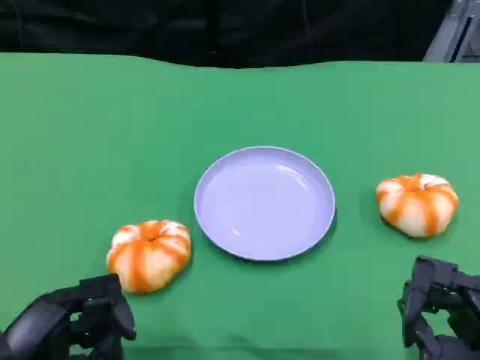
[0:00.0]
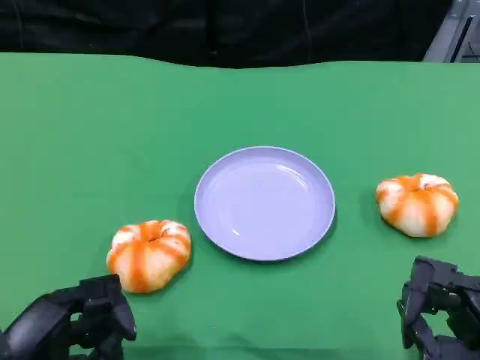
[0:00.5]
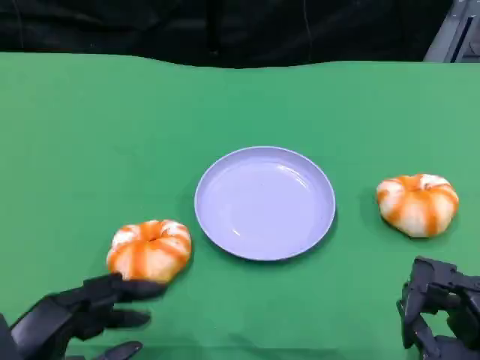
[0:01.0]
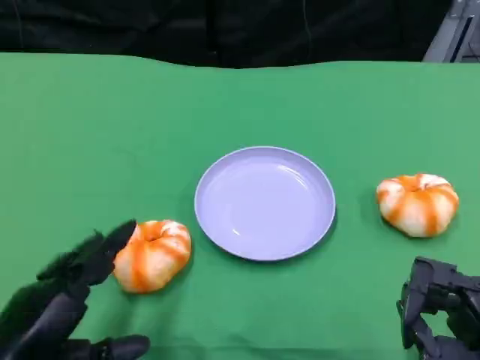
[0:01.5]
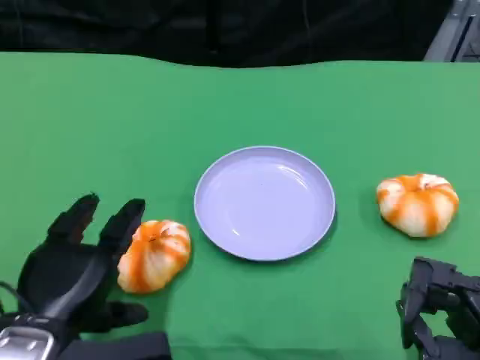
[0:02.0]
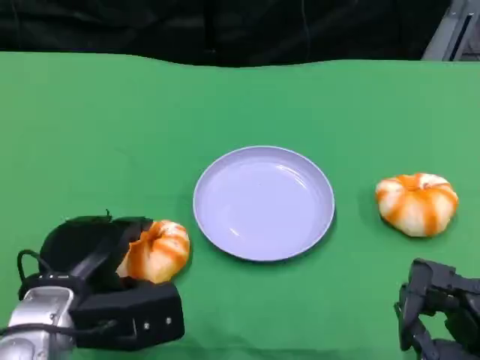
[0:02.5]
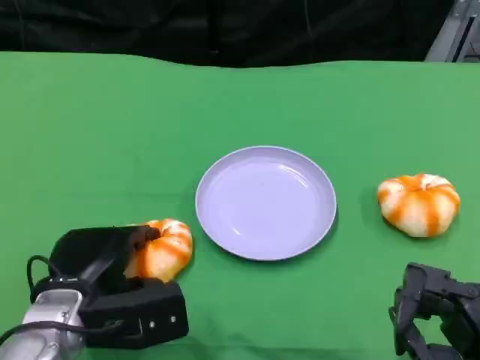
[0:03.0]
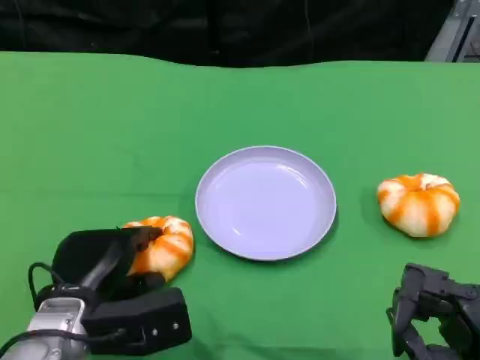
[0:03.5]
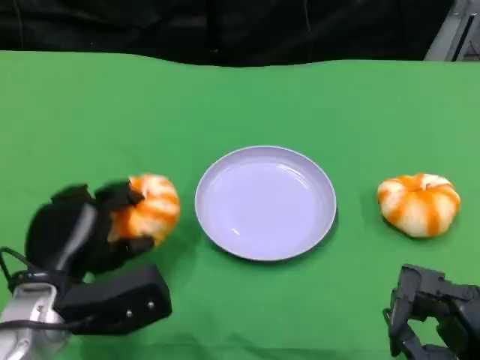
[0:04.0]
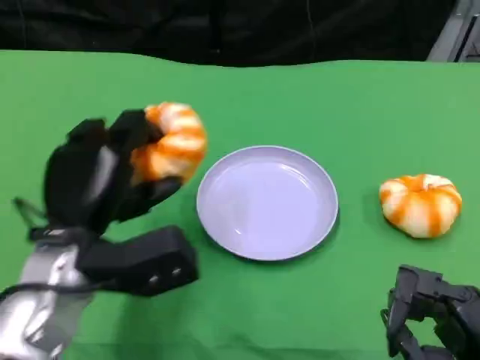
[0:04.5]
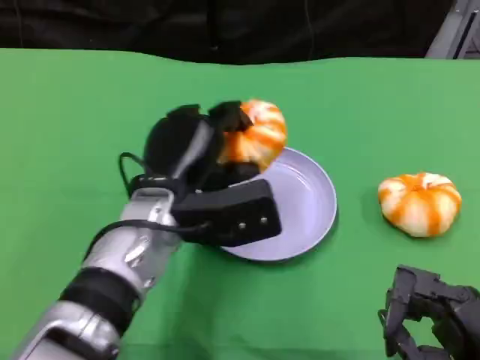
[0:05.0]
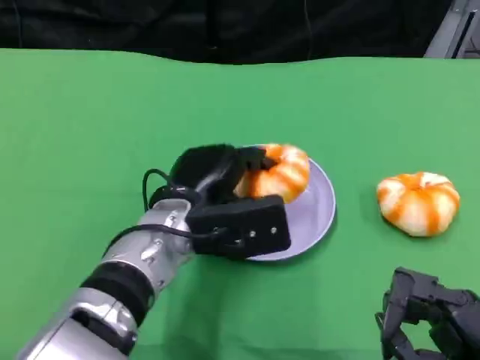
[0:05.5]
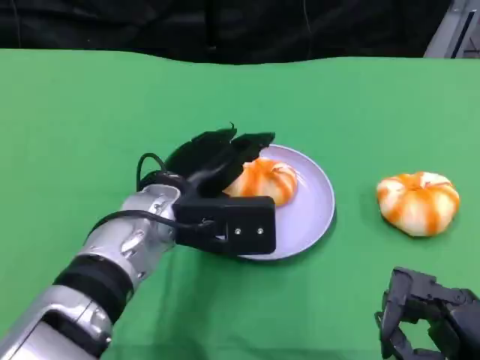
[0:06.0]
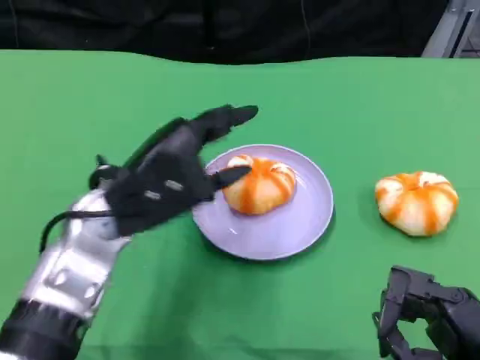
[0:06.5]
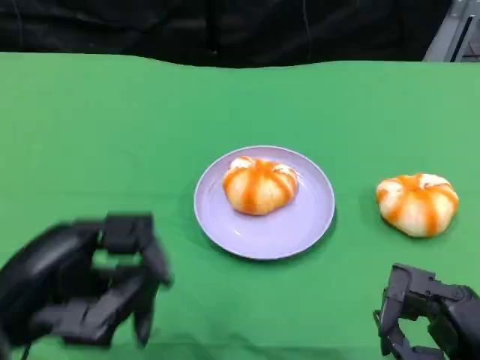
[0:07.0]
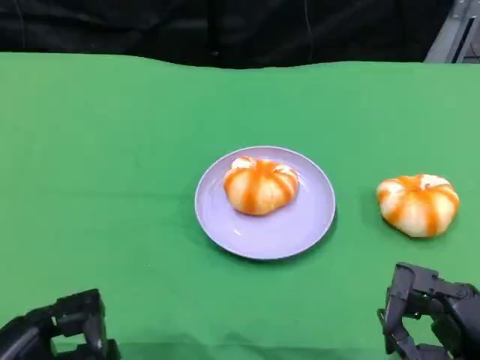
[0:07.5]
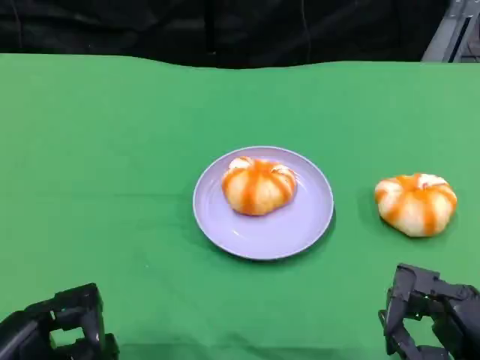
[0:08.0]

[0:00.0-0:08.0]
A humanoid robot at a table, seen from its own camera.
Task of the whole recording: Grasp the bread from the table and place it into the plate.
0:00.0 to 0:02.0: The left hand goes roughly 5 cm forward.
0:02.0 to 0:04.0: The left hand ends up roughly 5 cm from where it was.
0:04.0 to 0:06.0: The left hand shifts roughly 15 cm to the right and forward.
0:06.0 to 0:08.0: The left hand goes roughly 25 cm backward and to the left.

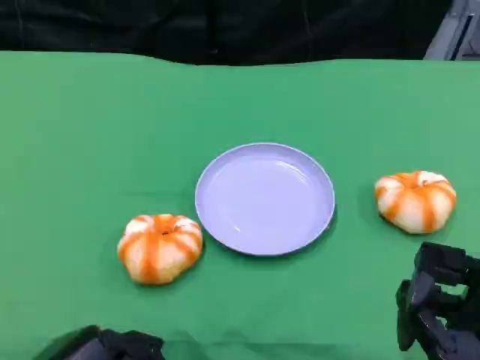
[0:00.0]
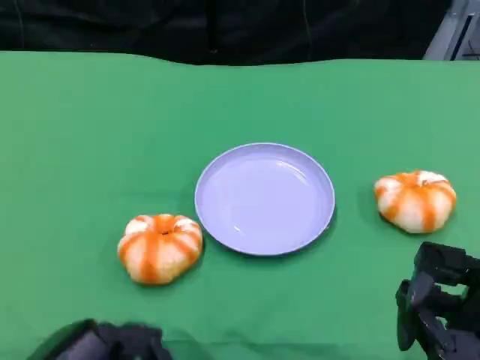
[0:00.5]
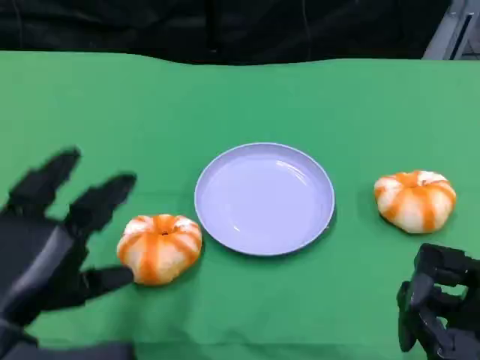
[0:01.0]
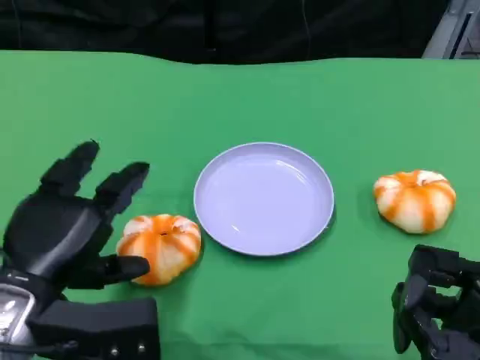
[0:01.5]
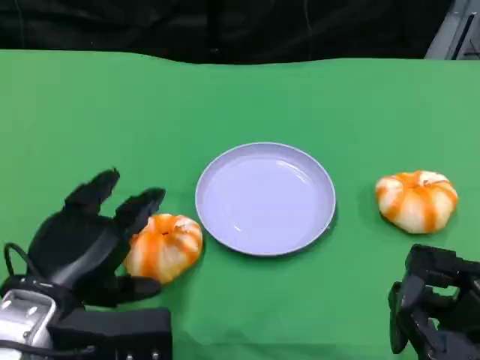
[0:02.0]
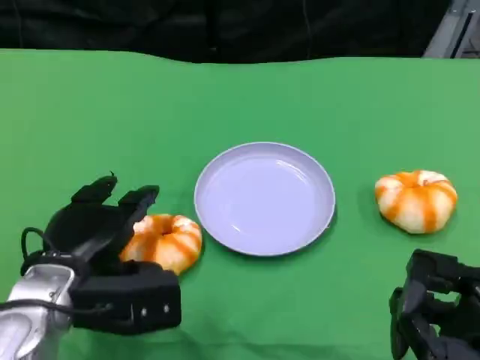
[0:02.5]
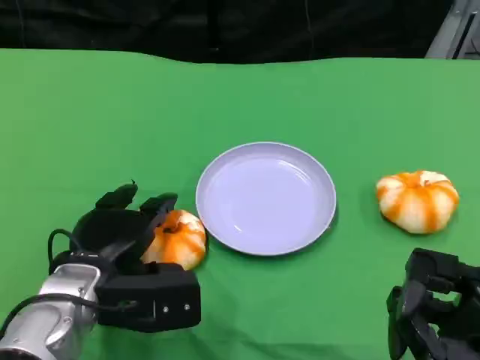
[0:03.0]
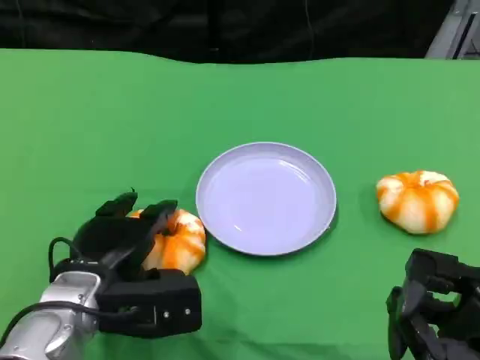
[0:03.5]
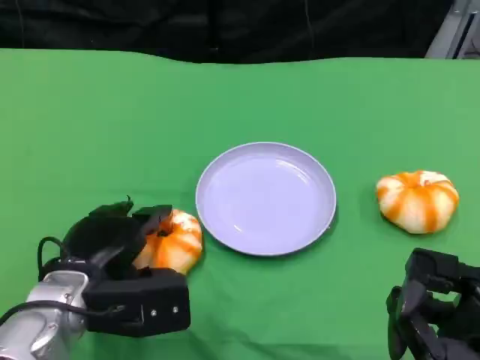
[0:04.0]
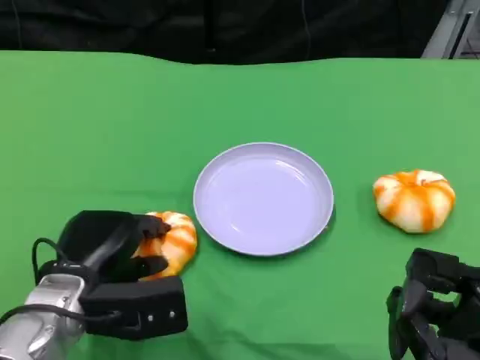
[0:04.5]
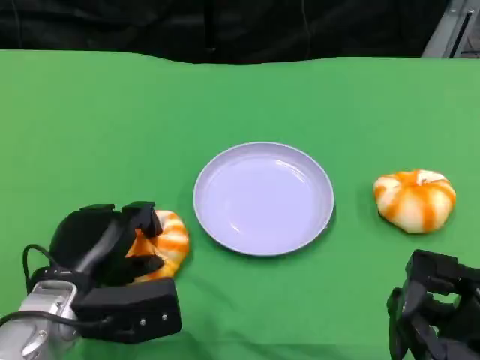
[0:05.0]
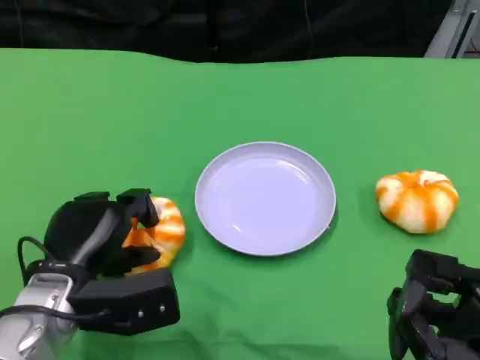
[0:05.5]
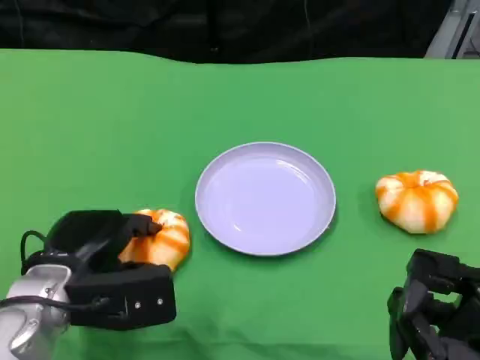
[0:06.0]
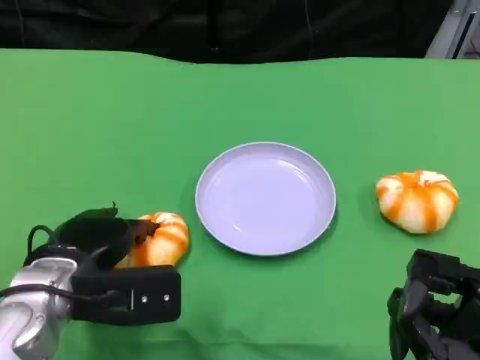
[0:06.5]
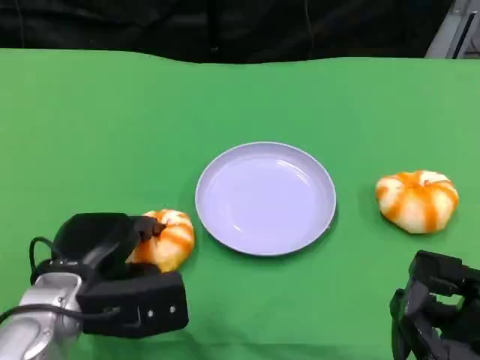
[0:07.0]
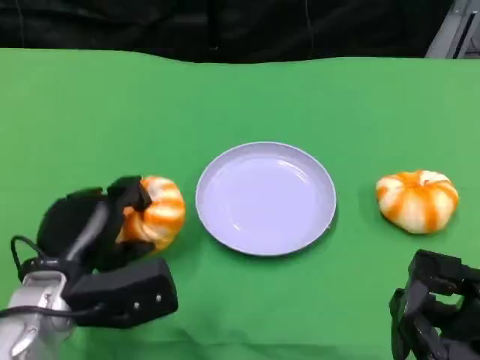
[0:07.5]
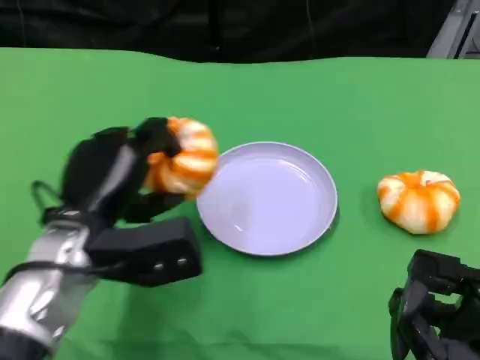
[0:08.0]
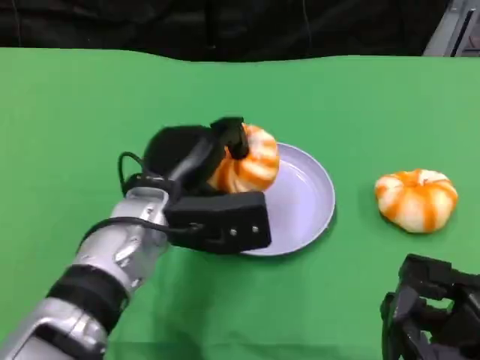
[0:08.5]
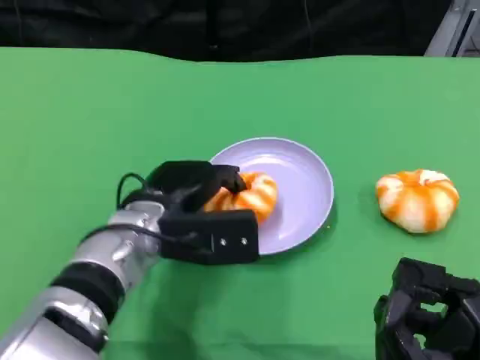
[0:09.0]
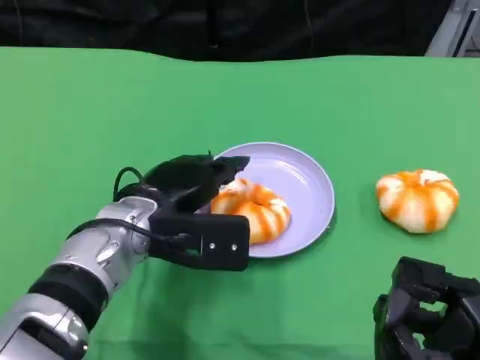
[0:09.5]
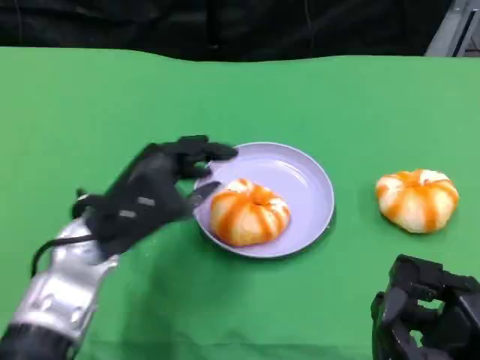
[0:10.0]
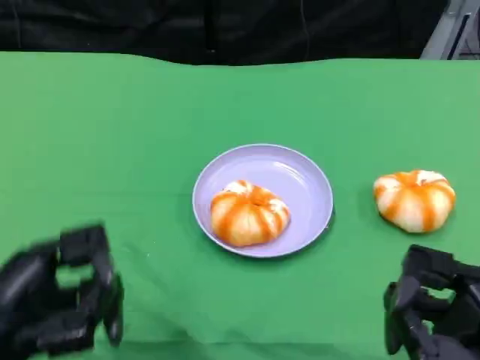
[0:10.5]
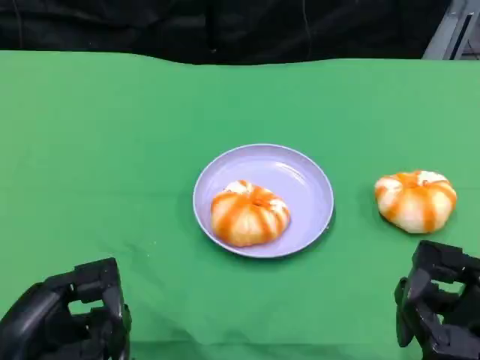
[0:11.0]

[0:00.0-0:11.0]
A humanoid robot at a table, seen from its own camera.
Task of the whole recording: Grasp the bread from the table and place it into the plate.
0:00.0 to 0:02.0: The left hand shifts roughly 10 cm forward.
0:02.0 to 0:03.5: The left hand shifts by roughly 5 cm.
0:03.5 to 0:05.5: The hands make only small movements.
0:07.5 to 0:09.0: The left hand goes some 10 cm to the right and forward.
0:09.0 to 0:11.0: The left hand travels backward and to the left by roughly 20 cm.

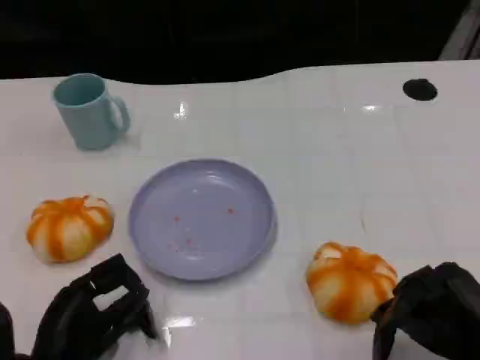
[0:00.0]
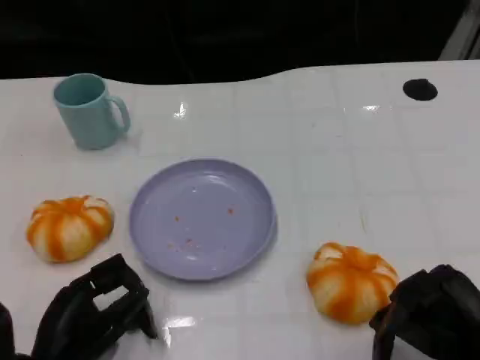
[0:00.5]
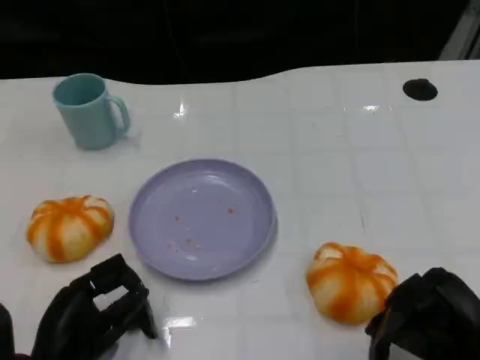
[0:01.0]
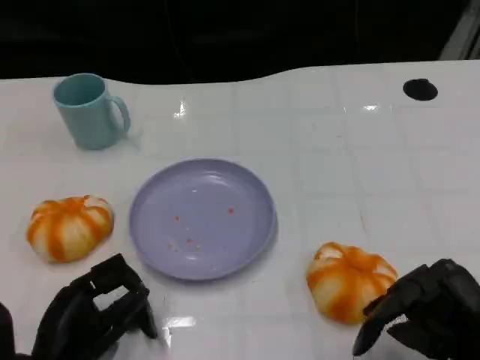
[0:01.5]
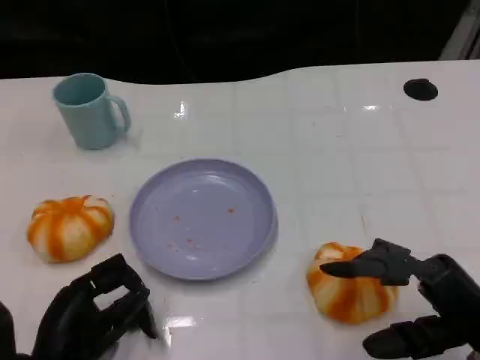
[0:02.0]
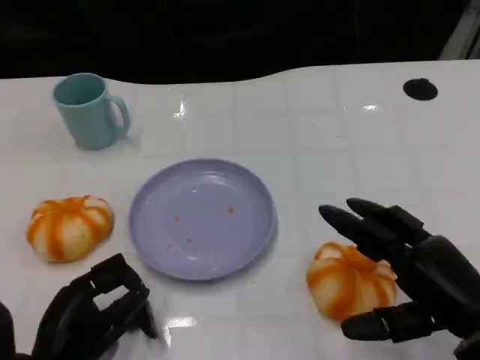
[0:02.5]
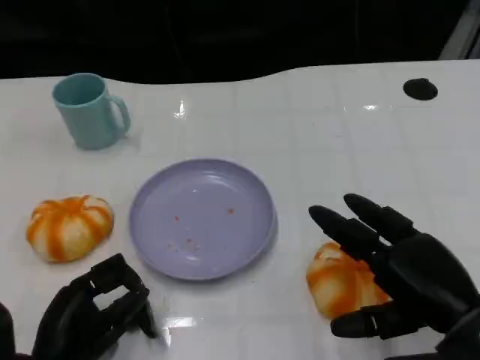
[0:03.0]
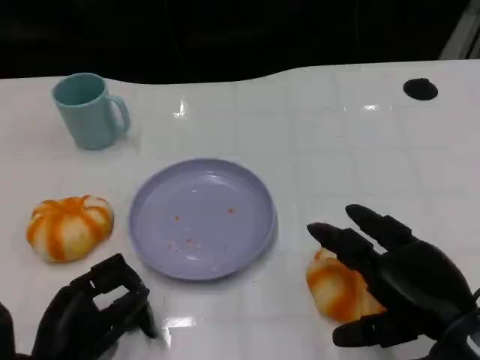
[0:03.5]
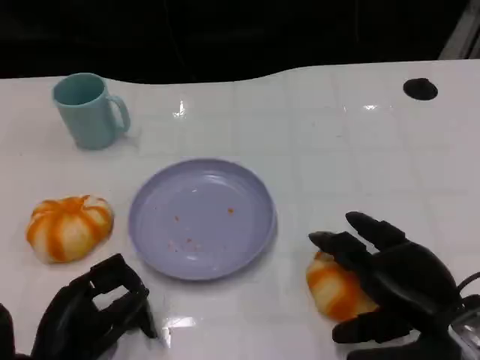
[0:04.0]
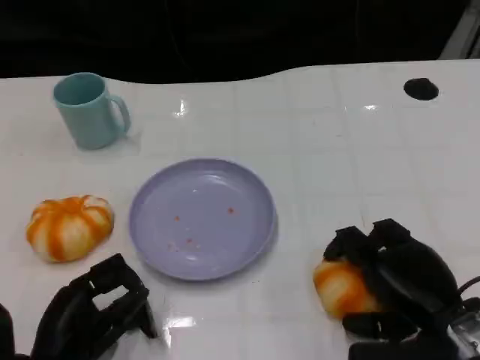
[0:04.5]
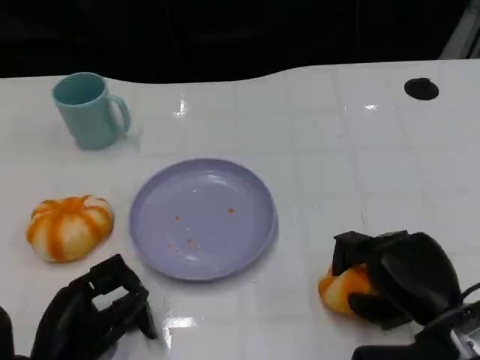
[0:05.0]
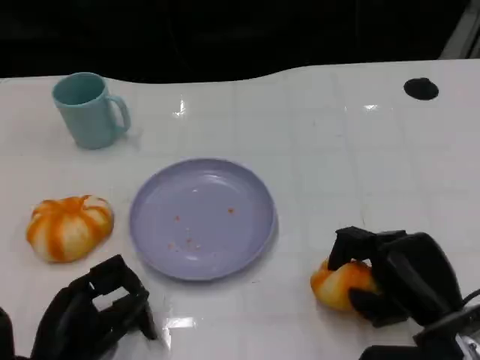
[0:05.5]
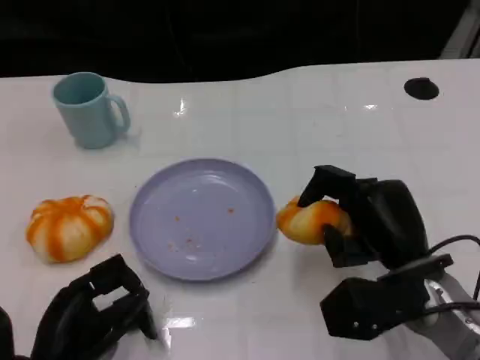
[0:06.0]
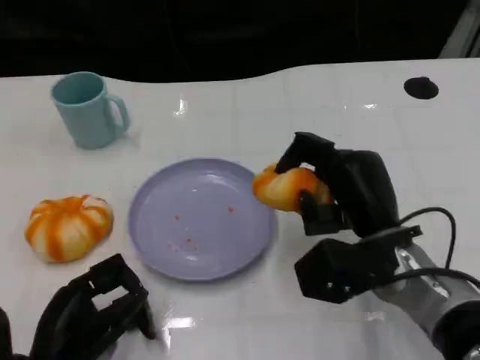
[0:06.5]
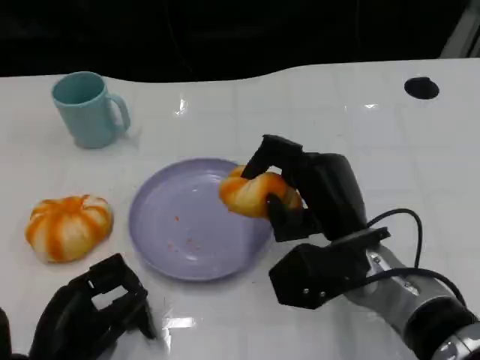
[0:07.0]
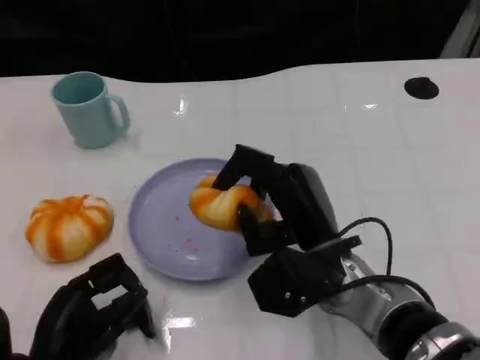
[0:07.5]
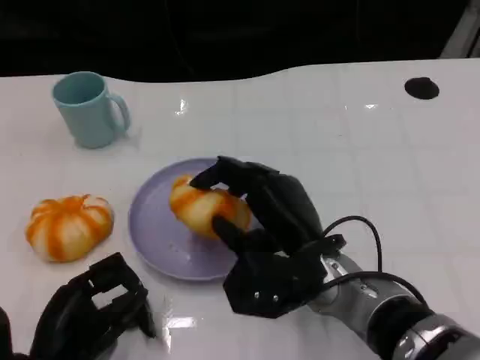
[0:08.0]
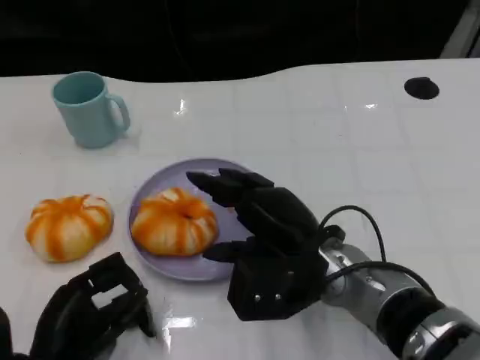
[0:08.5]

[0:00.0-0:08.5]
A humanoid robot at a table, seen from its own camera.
Task of the whole recording: Grasp the bread from the table and place it into the plate.
0:04.0 to 0:06.5: The right hand heads to the left and forward, covering approximately 10 cm.
0:06.5 to 0:08.5: The right hand is displaced to the left by approximately 5 cm.
